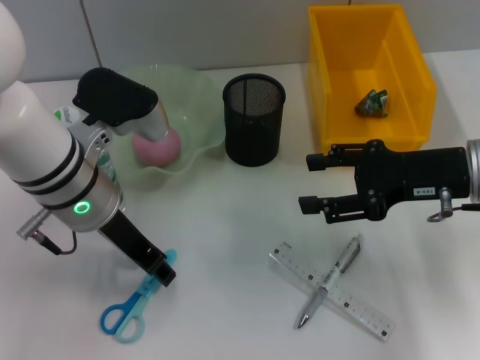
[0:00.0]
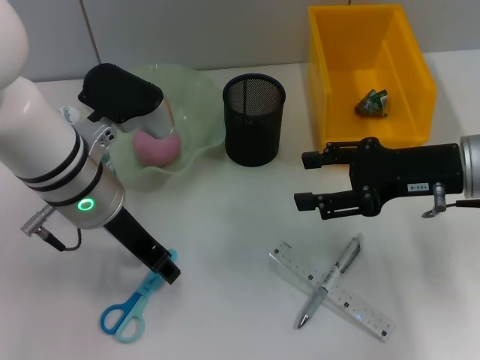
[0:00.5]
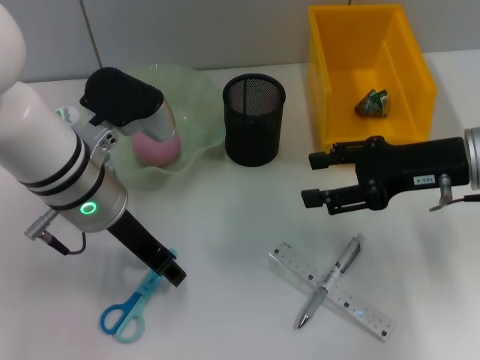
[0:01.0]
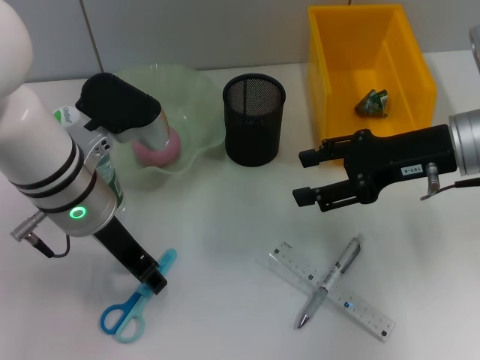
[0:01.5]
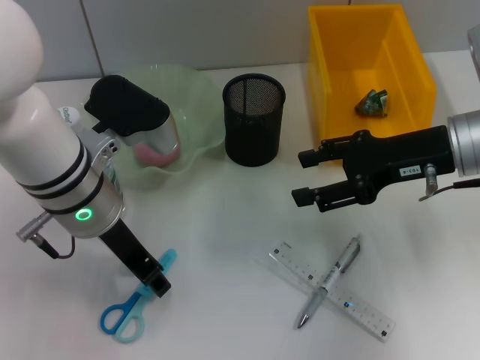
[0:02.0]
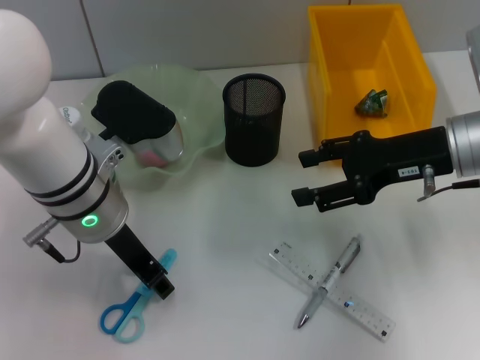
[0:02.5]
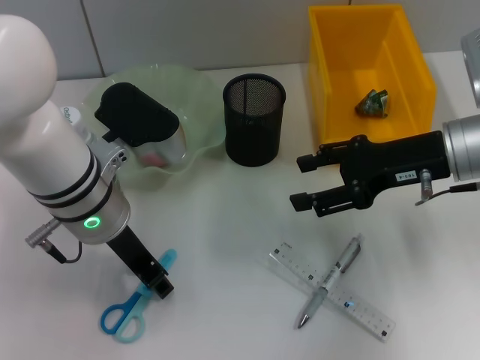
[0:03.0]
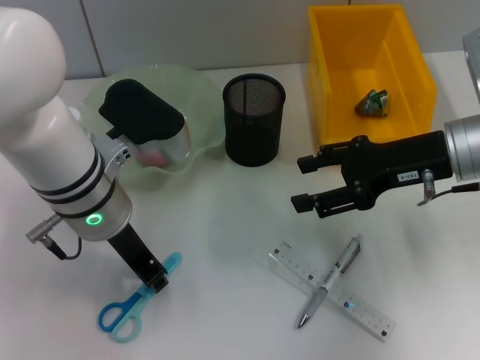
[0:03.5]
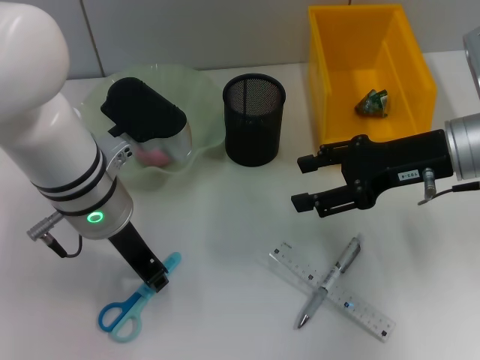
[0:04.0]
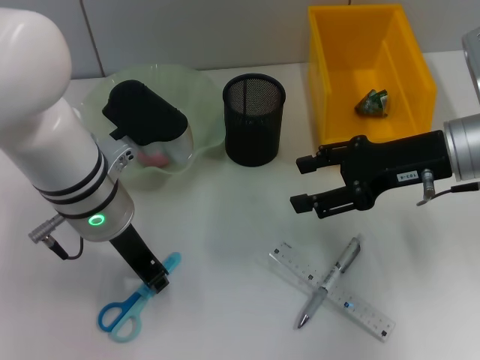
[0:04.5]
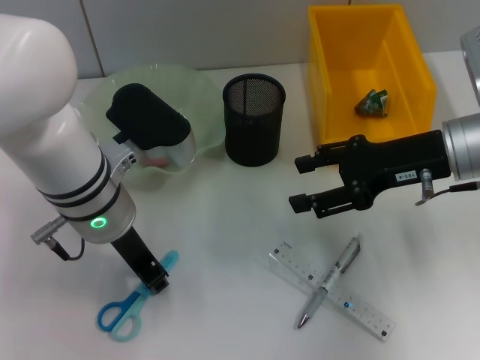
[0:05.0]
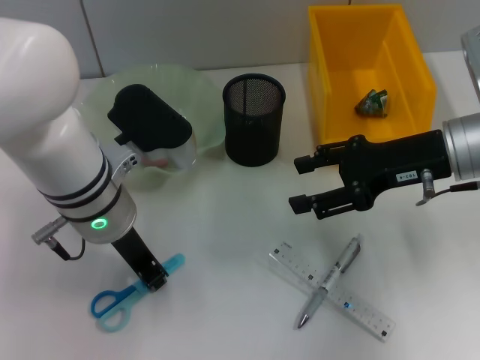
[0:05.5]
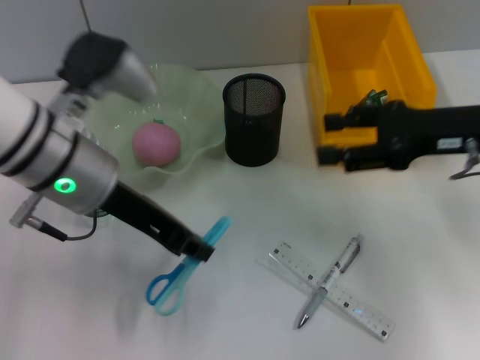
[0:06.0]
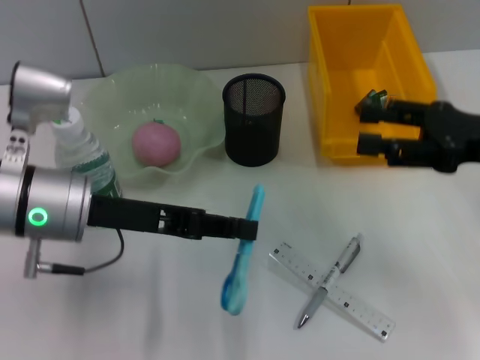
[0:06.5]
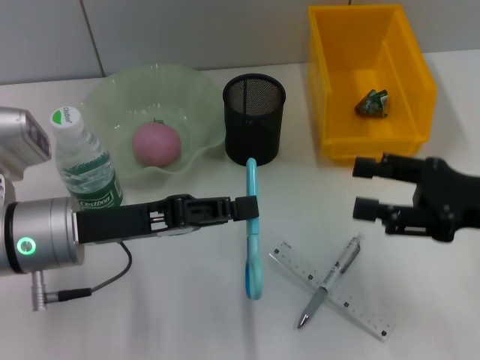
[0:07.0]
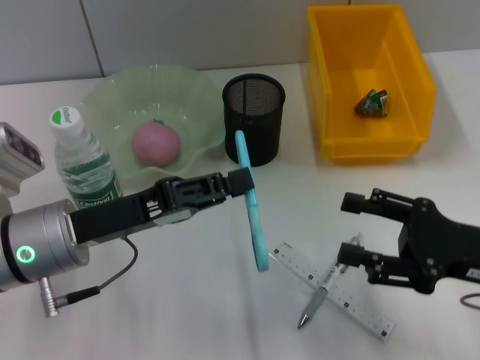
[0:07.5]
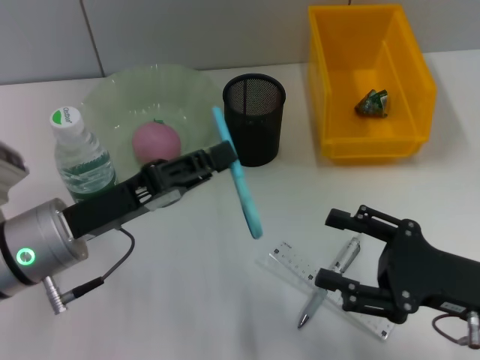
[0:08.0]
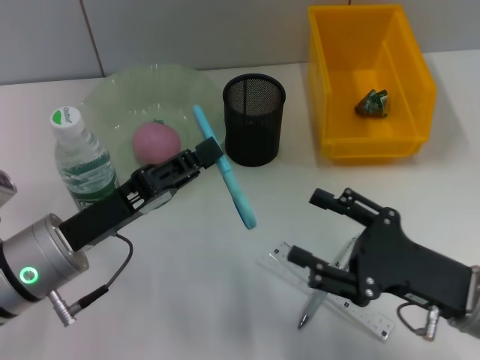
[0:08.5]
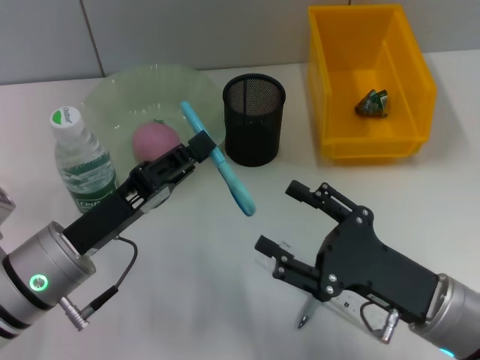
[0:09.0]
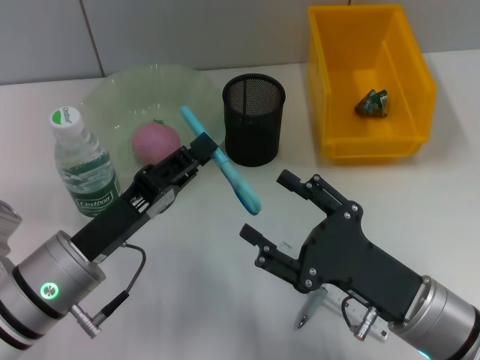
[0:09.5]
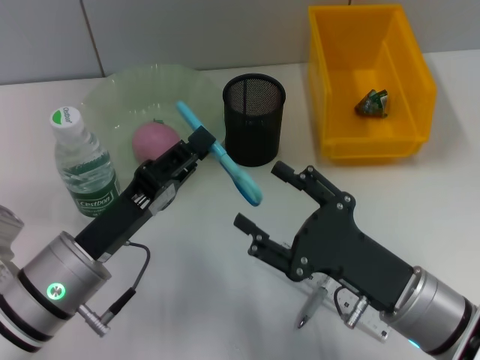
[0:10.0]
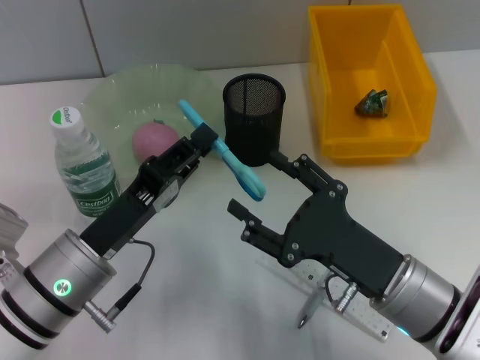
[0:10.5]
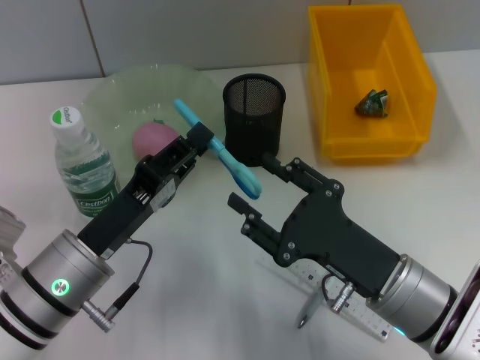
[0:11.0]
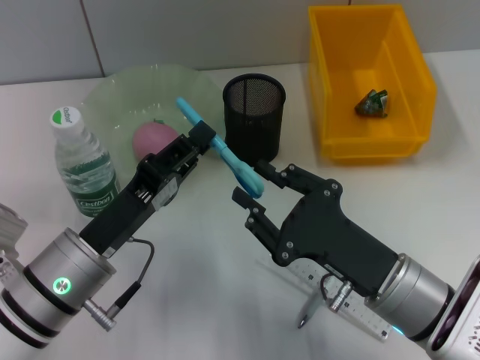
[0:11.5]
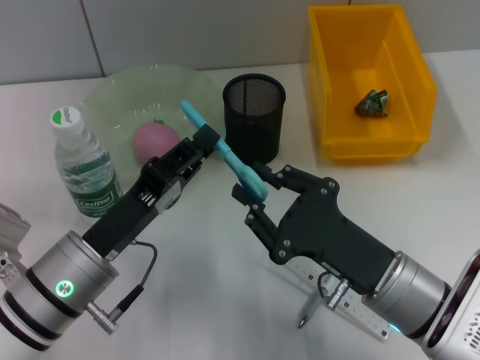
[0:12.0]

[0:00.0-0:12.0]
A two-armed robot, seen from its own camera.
Step, 0:00.0 to 0:05.0: Grab the blue scissors with the left hand.
0:00.0 to 0:02.0: The grippers stay close to where they were, moving slightly.
0:02.0 to 0:04.0: Both grippers stay put.
0:06.0 to 0:08.0: The left gripper heads downward and backward, covering approximately 10 cm. Meanwhile the right gripper shifts approximately 15 cm backward and downward.
0:08.0 to 0:10.0: The right gripper heads to the left, covering about 10 cm.
0:10.0 to 0:12.0: The right gripper closes.

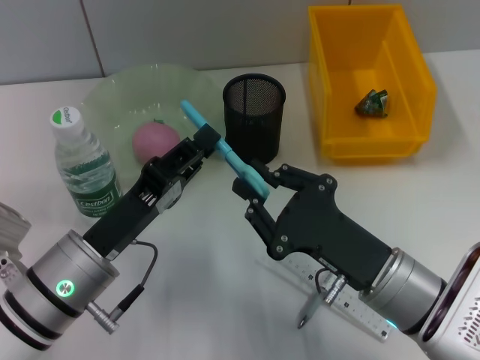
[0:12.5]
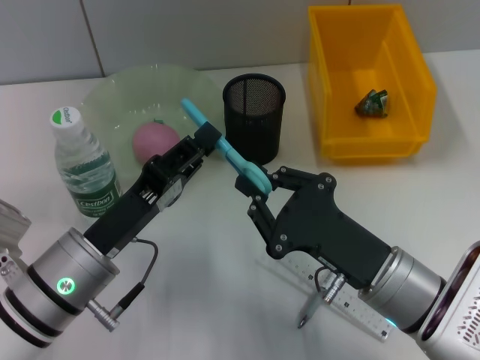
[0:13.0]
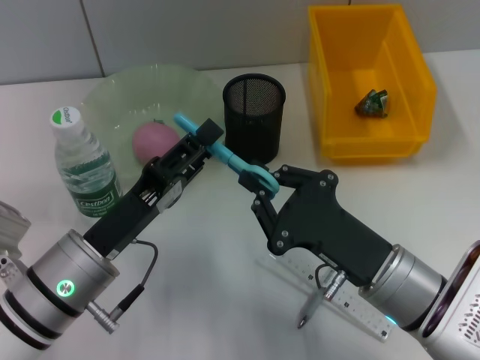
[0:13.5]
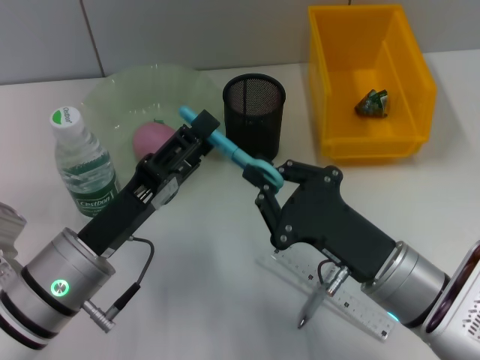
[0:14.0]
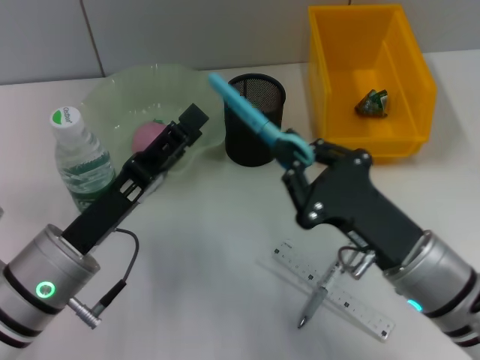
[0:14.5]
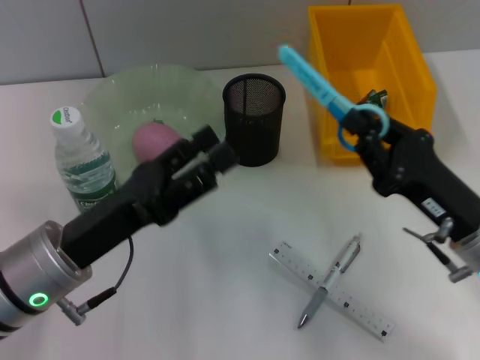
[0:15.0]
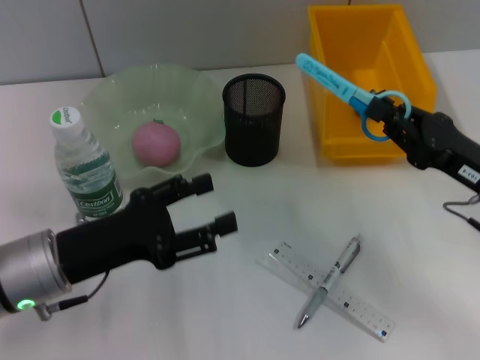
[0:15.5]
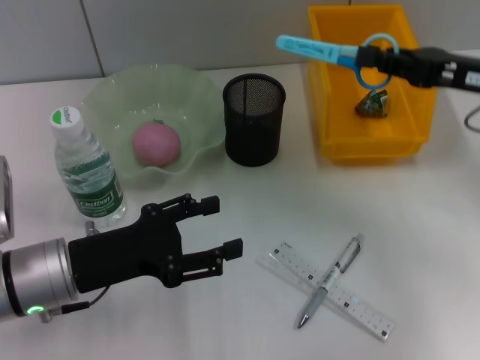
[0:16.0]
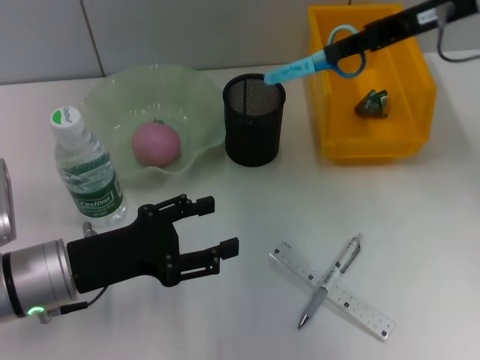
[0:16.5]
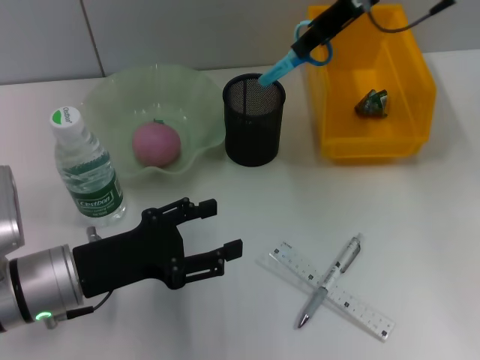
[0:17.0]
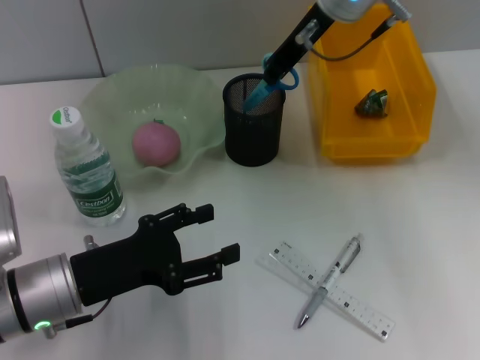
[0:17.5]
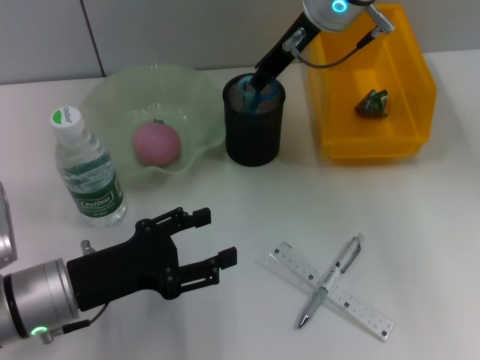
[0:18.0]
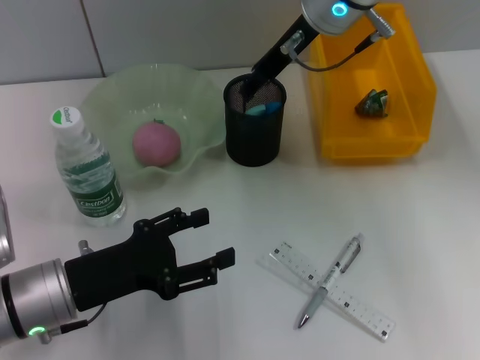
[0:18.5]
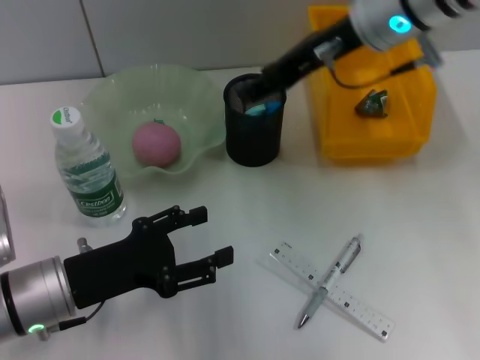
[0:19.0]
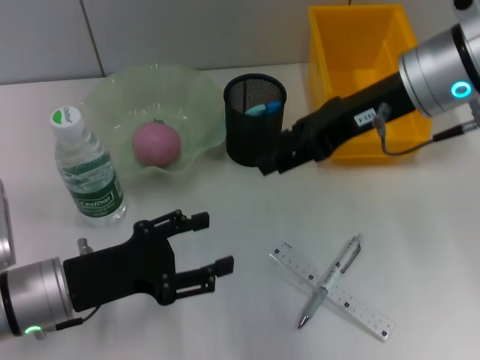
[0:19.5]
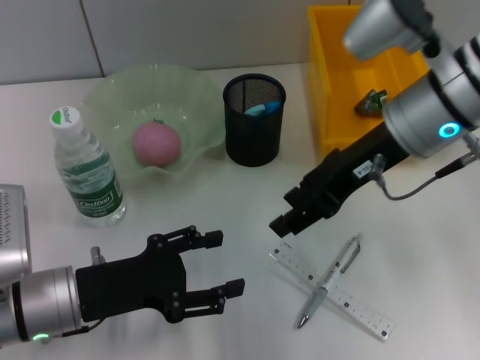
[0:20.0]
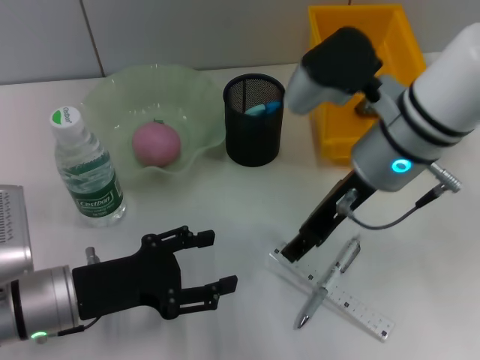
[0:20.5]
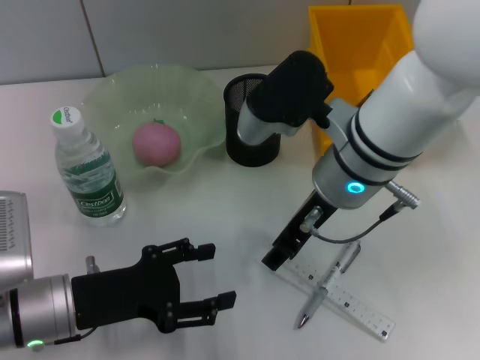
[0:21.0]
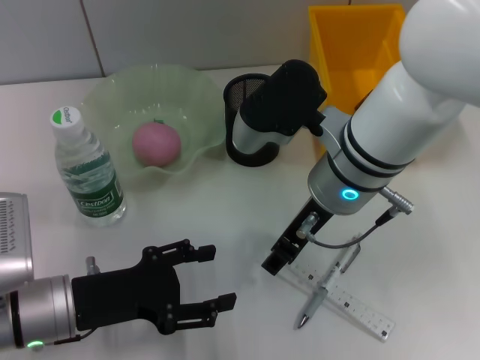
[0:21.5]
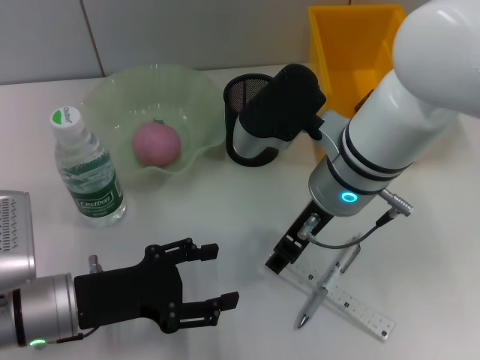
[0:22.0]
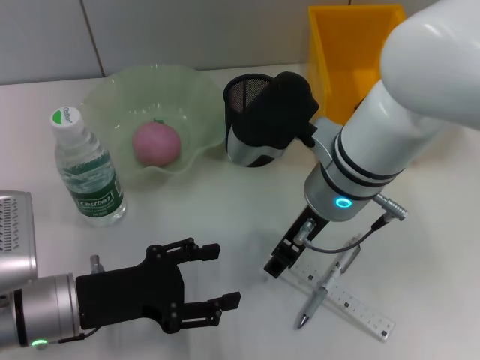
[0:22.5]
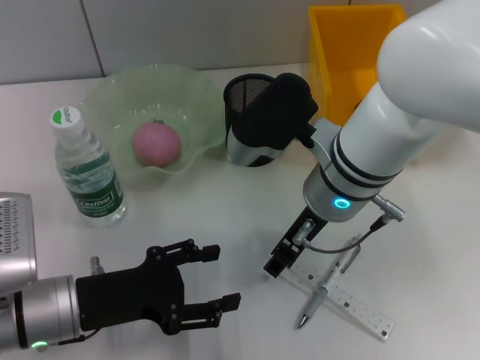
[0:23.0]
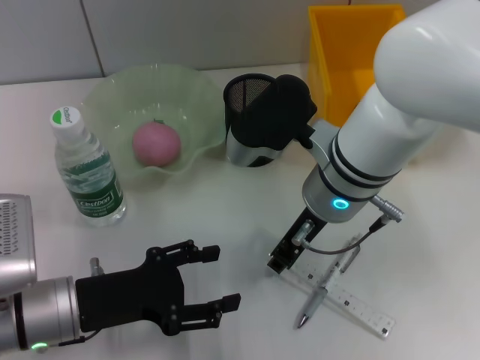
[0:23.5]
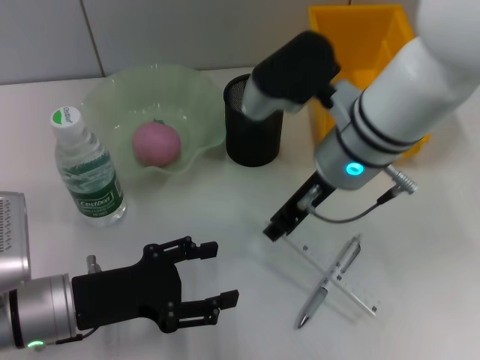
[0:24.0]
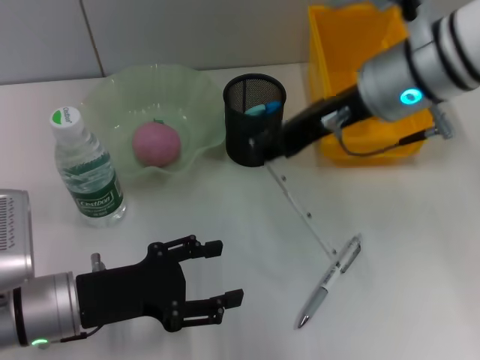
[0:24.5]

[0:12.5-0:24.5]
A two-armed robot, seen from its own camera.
Step, 0:14.5 to 0:18.0: Place the blue scissors into the pen holder with the right hand.
Step, 0:19.0 to 0:23.0: Grab the ruler with the right hand.
0:12.5 to 0:14.5: The left gripper opens its fingers.
0:14.5 to 0:16.5: The right gripper shifts roughly 30 cm upward and forward.
0:16.5 to 0:18.5: The right gripper travels to the left by approximately 15 cm, and opens.
0:18.5 to 0:20.5: The right gripper shifts about 15 cm backward and downward.
0:20.5 to 0:22.5: The right gripper moves approximately 5 cm.
0:22.5 to 0:24.5: The right gripper heads upward and to the right, covering approximately 10 cm.

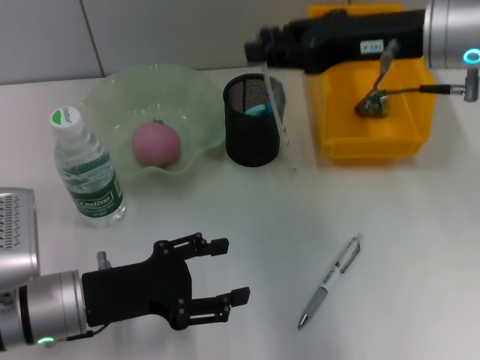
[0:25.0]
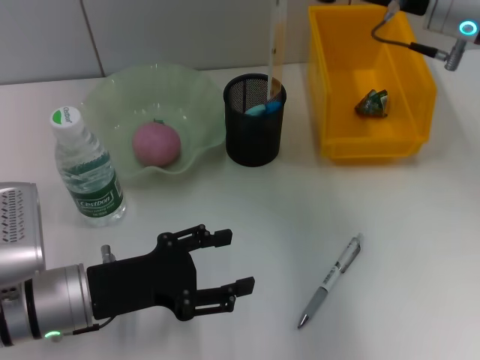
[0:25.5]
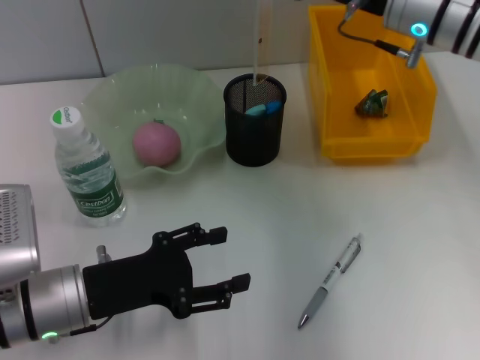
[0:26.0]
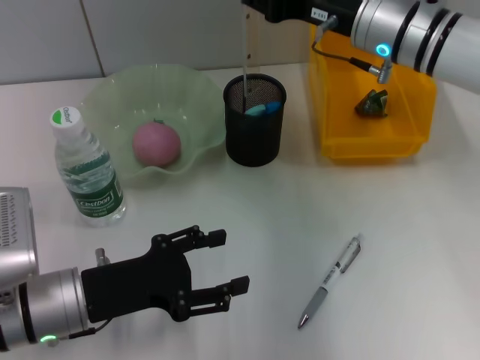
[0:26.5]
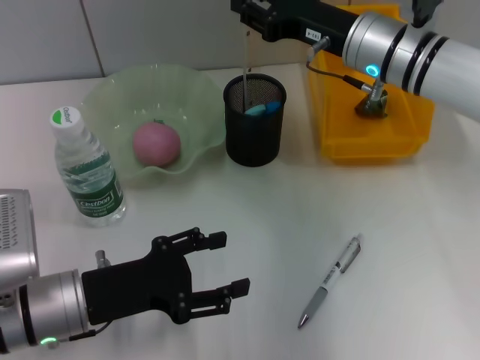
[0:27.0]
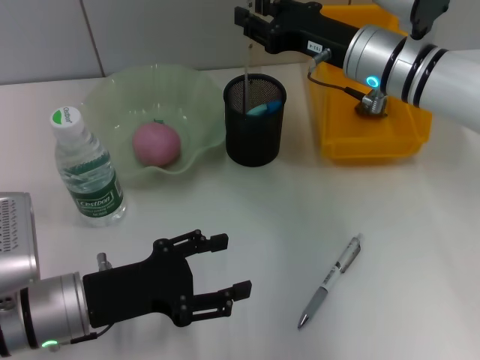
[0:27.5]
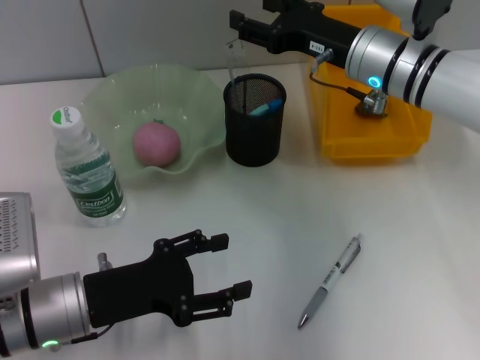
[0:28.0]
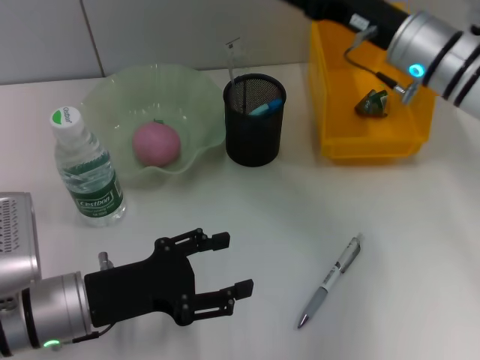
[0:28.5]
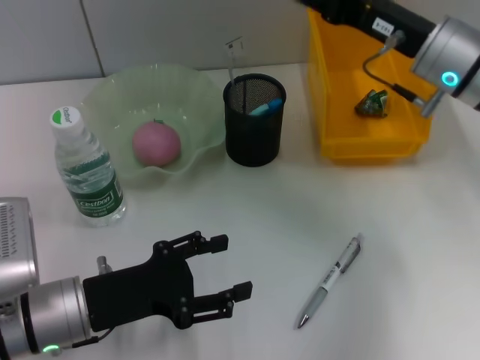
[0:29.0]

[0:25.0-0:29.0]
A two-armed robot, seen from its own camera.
Step, 0:25.0 to 0:27.5: Place the ruler into the pen holder with the right hand.
0:25.0 to 0:27.0: The right gripper goes roughly 10 cm downward and forward.
0:27.0 to 0:29.0: The right gripper moves about 5 cm, and opens up.
